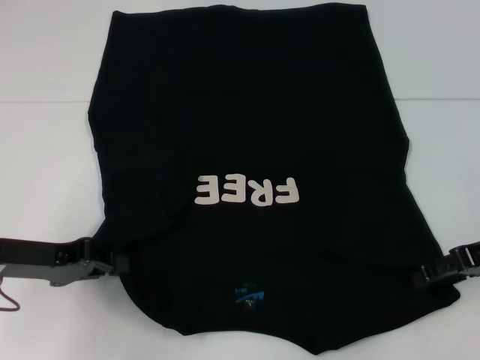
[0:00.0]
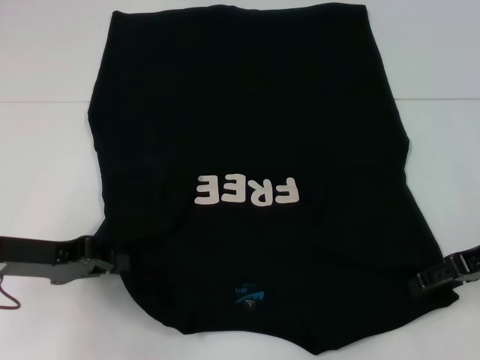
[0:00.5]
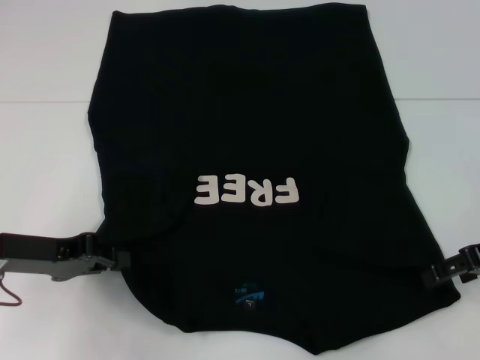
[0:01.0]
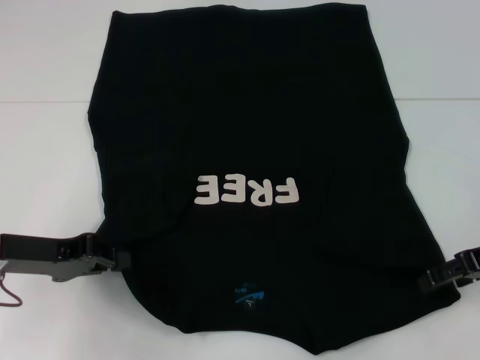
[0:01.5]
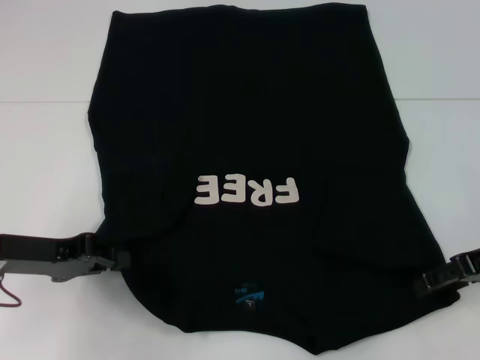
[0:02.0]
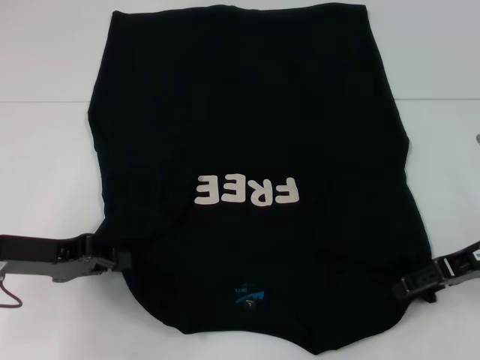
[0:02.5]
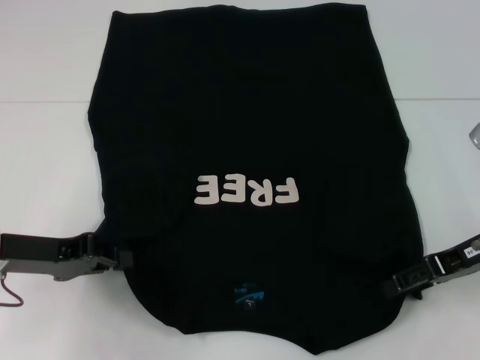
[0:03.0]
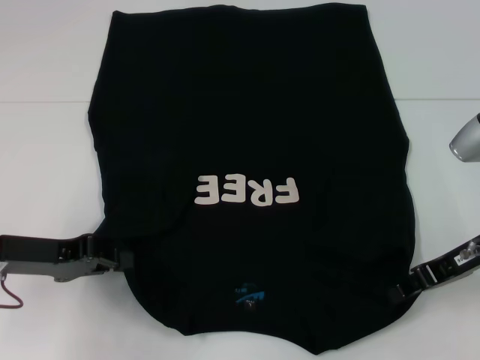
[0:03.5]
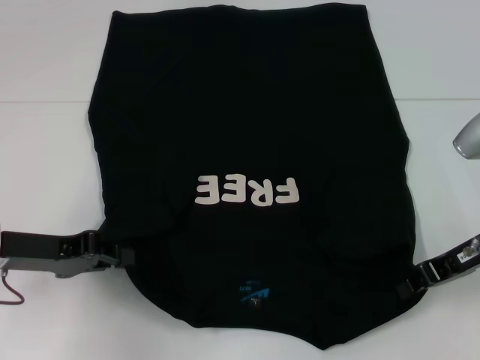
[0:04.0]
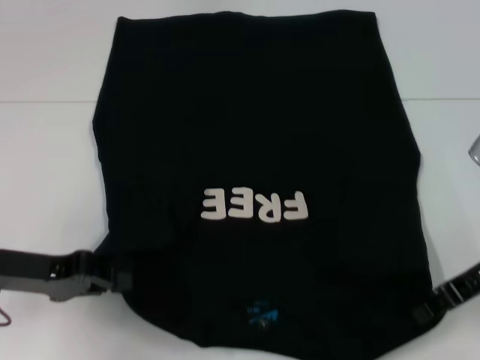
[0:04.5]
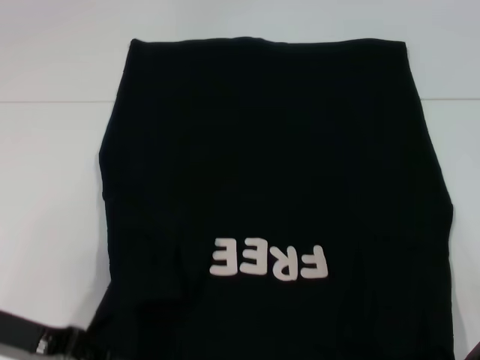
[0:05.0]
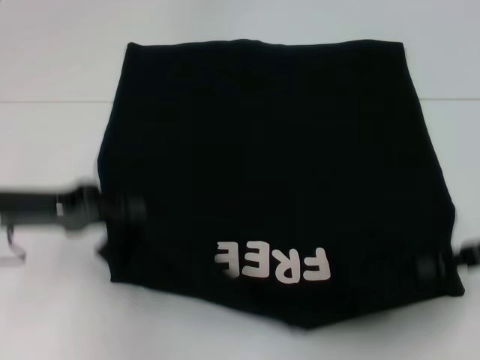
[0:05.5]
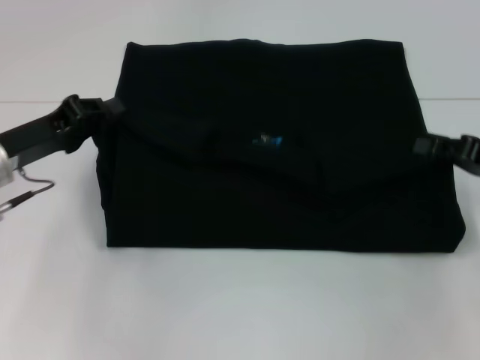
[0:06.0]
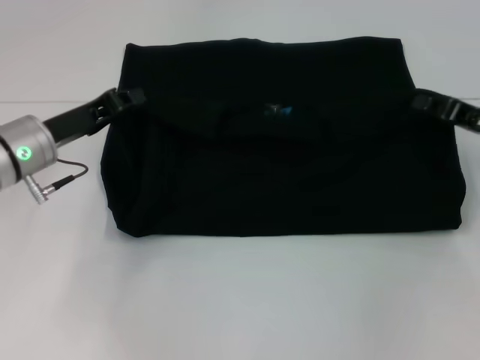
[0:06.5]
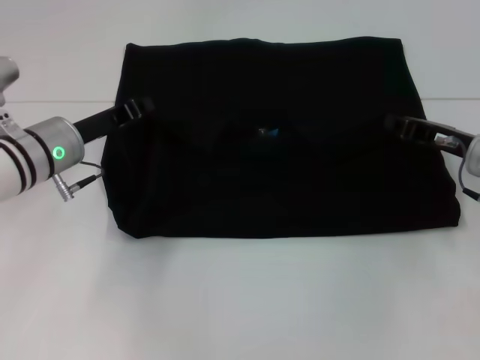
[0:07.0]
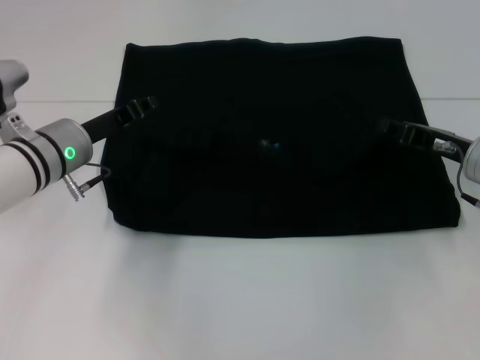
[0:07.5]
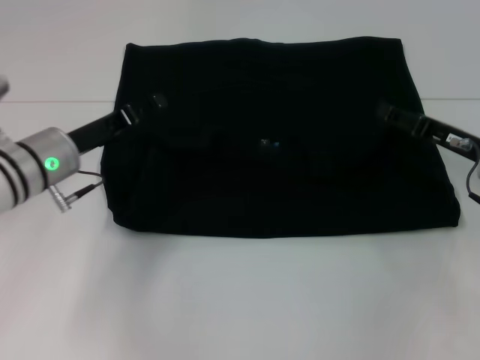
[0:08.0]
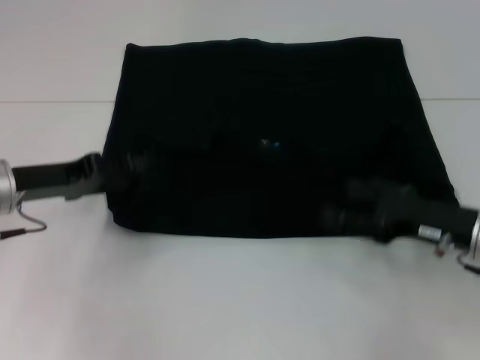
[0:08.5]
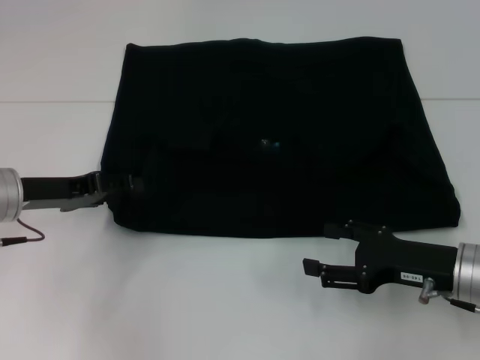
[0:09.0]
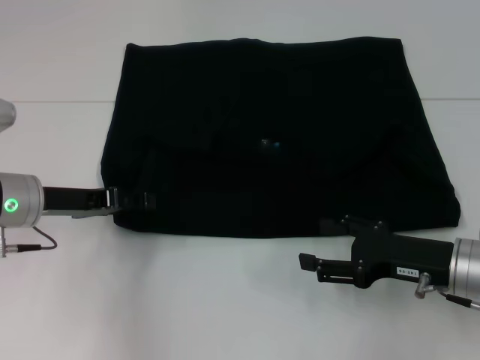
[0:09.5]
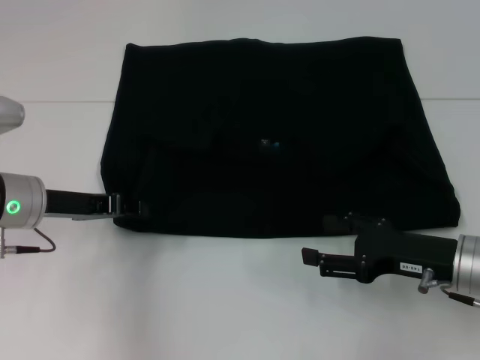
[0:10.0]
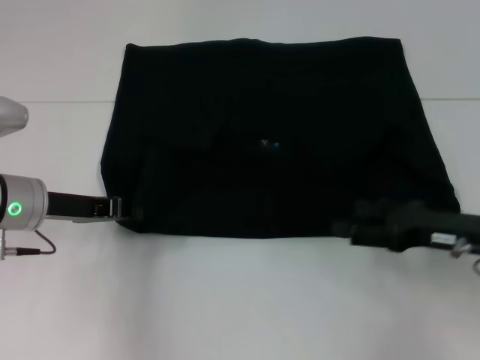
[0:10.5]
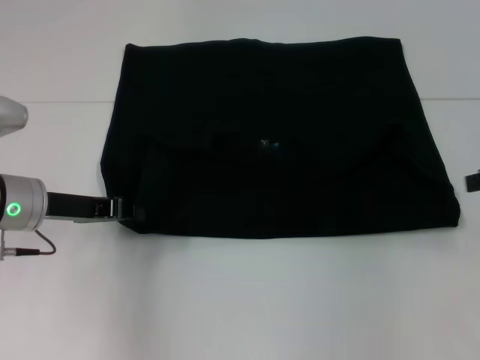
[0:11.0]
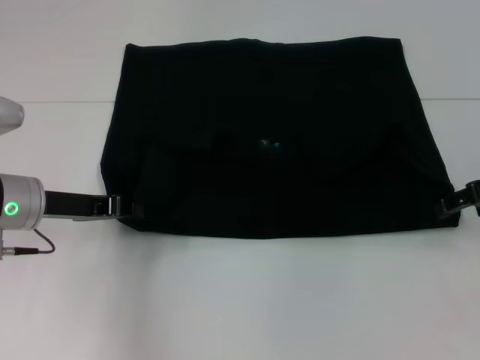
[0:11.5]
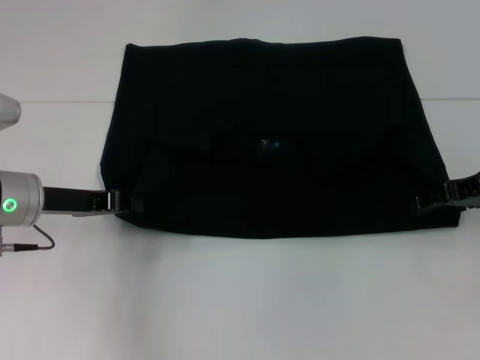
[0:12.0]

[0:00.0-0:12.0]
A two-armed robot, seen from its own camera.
Step, 0.0 to 4.0 s: Grab the bottom right corner with your right hand.
Step, 4.5 to 8.0 s: Fold the clothes with your left hand.
Step, 4.5 to 8.0 s: Fold the clothes with your right hand.
0.0 to 2.0 s: Both grippers stay put.
2.0 to 4.0 s: The right gripper closes its fingers.
4.0 to 6.0 s: The right gripper shifts approximately 5 cm to the right; the left gripper moves some 5 cm.
6.0 to 8.0 s: The left gripper travels to the right by roughly 5 cm, and opens; the right gripper shifts by about 5 cm, and opens up.
8.0 to 10.0 s: The right gripper is displaced backward by some 10 cm.
10.0 to 12.0 s: The right gripper travels forward, upward and to the right by approximately 15 cm. Meanwhile the left gripper closes its fingers.

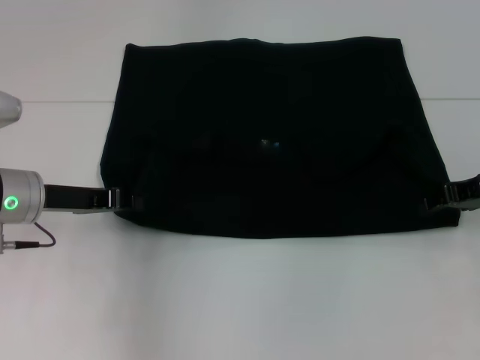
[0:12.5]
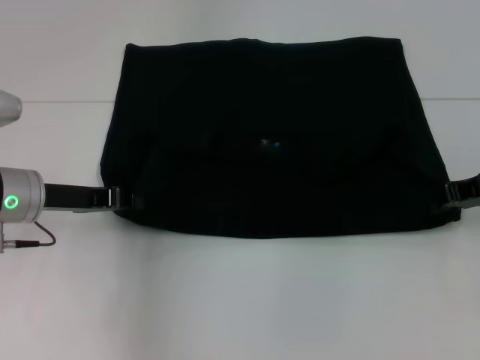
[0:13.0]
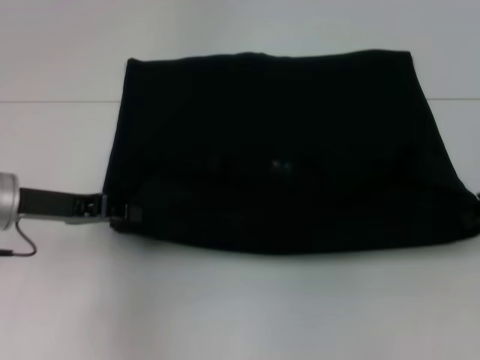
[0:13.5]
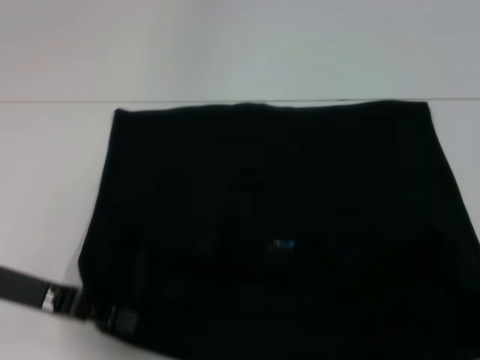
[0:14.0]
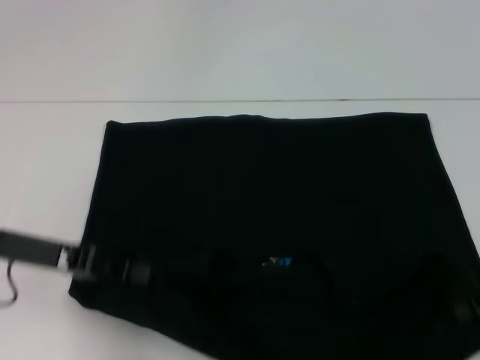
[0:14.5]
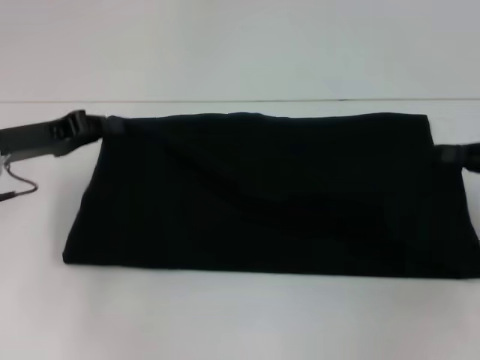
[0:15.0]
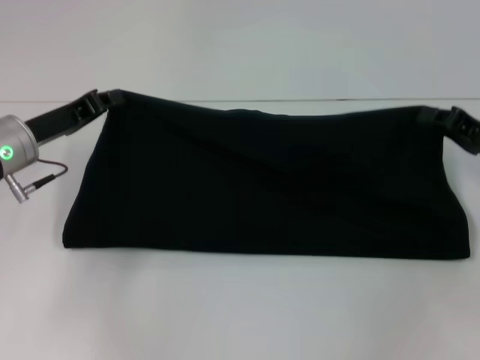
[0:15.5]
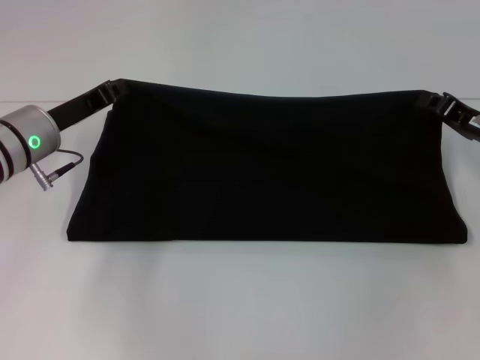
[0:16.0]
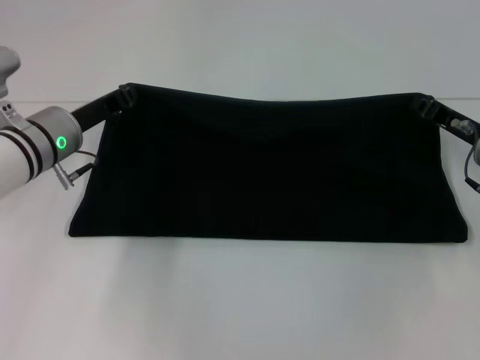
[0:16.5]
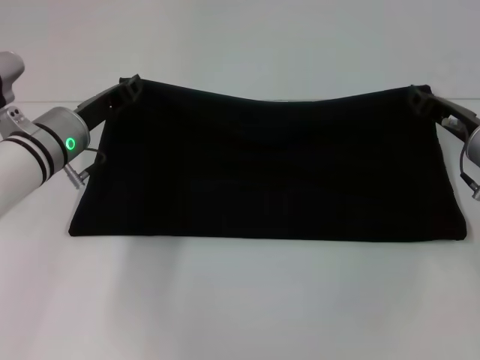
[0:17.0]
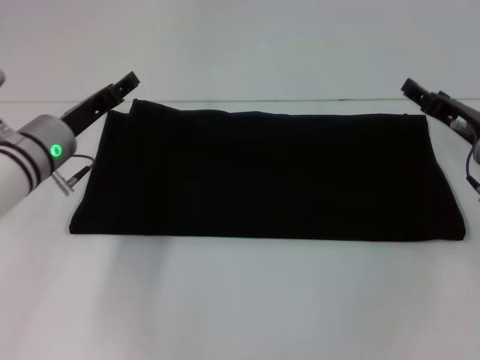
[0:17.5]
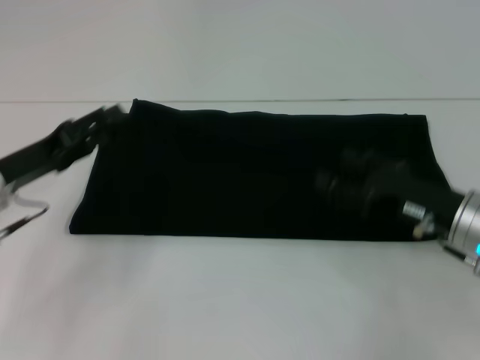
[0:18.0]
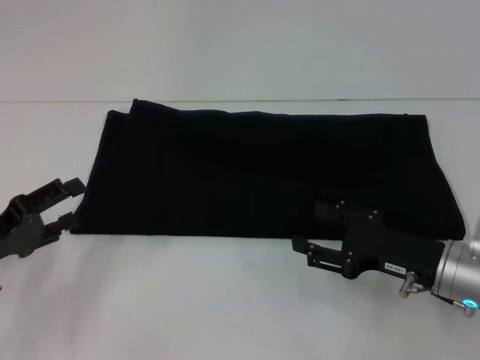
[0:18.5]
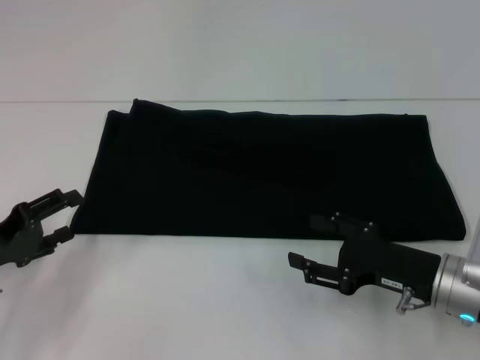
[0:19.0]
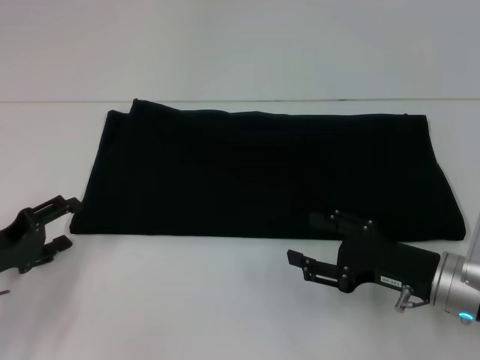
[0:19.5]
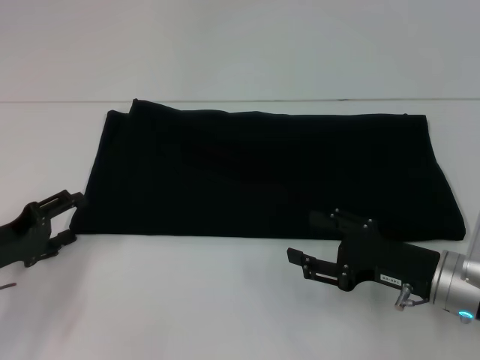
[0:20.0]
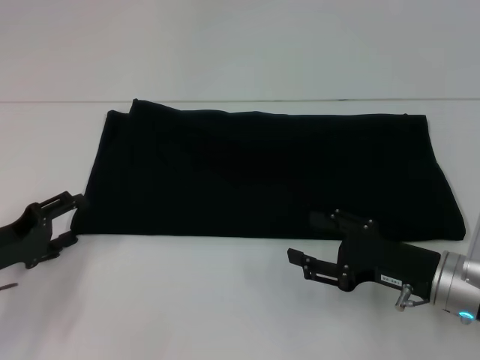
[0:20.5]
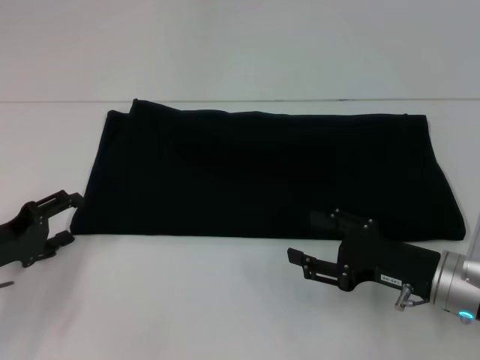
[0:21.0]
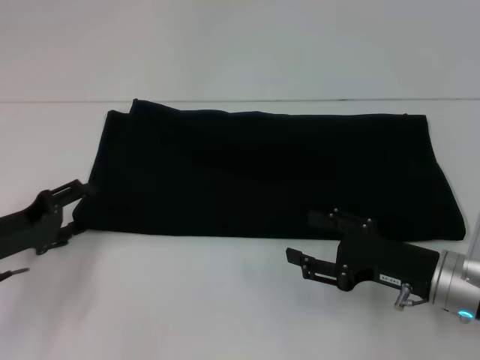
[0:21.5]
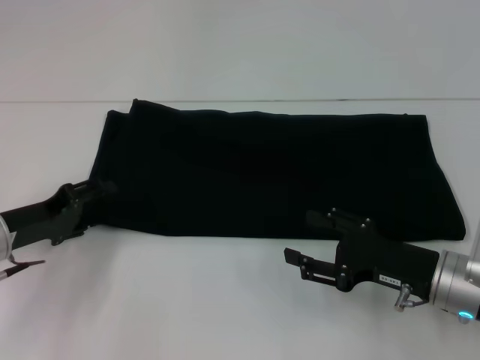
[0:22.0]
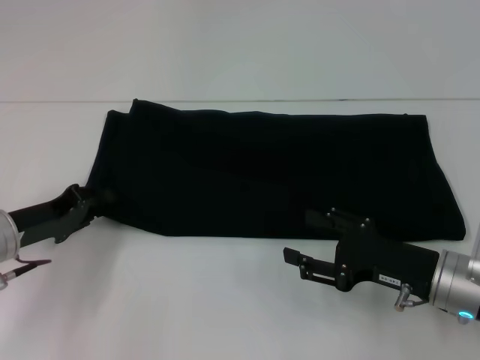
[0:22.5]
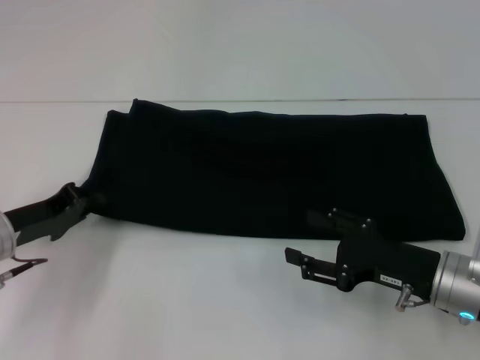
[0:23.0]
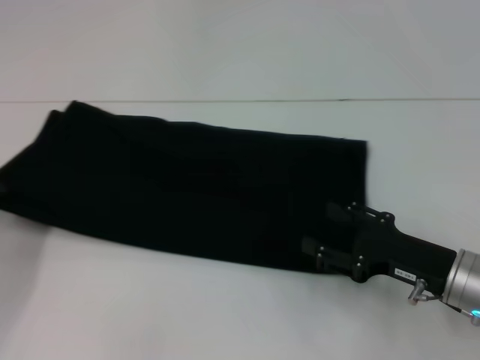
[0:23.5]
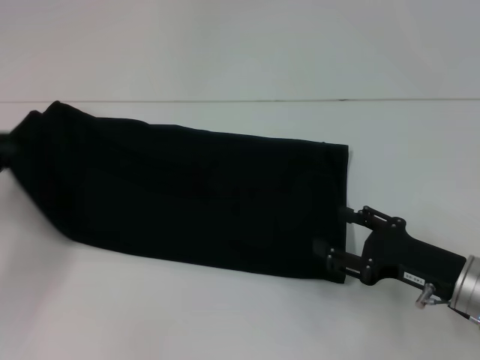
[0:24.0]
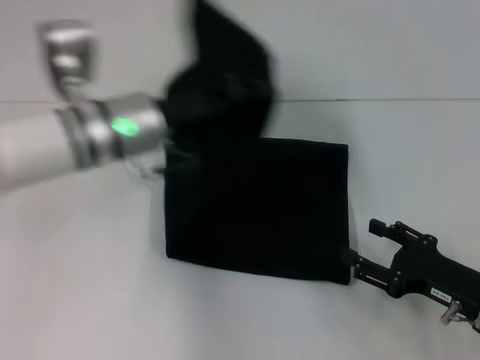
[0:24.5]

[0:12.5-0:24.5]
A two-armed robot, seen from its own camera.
Step, 14.5 to 17.0 s: Fold the clothes with your right hand.
12.5 to 14.5 s: The right gripper shifts about 10 cm backward, and closes. Meanwhile the left gripper is displaced backward by roughly 5 cm.
14.5 to 16.5 s: The left gripper heads forward and to the right, covering approximately 10 cm. The right gripper moves forward and to the left, about 10 cm.
16.5 to 18.5 s: The right gripper heads backward, covering approximately 10 cm, and opens up. Meanwhile the left gripper goes about 20 cm backward and to the left, and opens.
18.5 to 20.5 s: The grippers stay close to where they were, moving slightly.
20.5 to 22.5 s: The left gripper closes.
22.5 to 24.5 s: The right gripper changes place by roughly 5 cm; the left gripper is displaced to the right, upward and forward by about 20 cm, and closes its fingers.

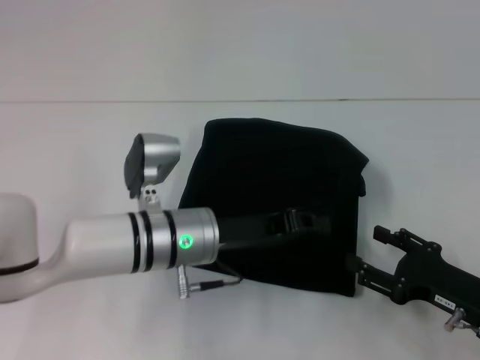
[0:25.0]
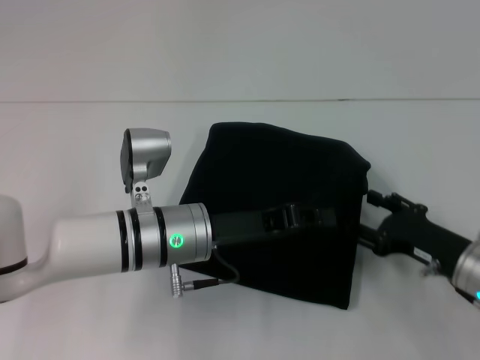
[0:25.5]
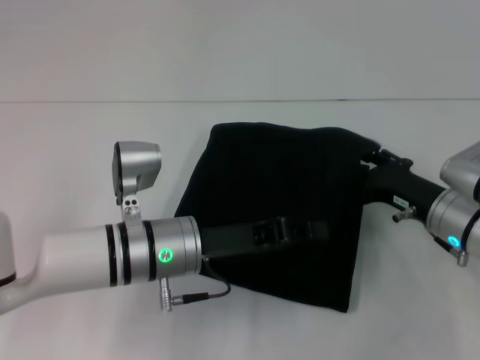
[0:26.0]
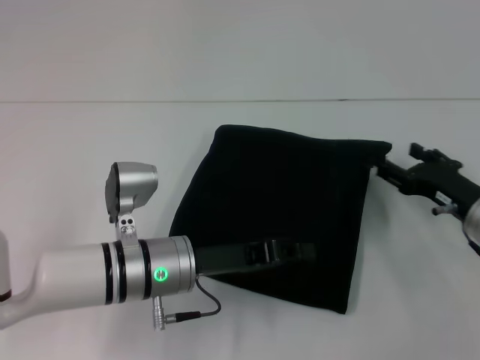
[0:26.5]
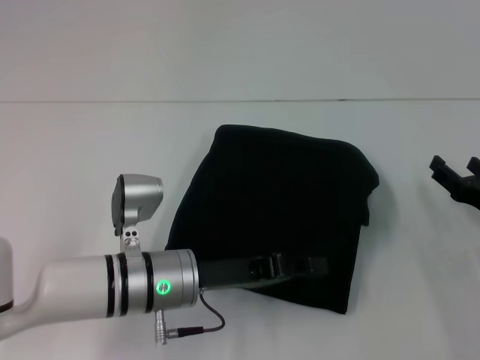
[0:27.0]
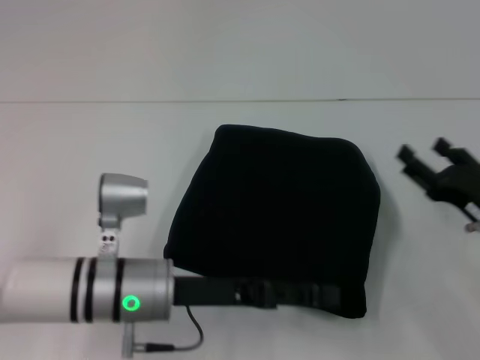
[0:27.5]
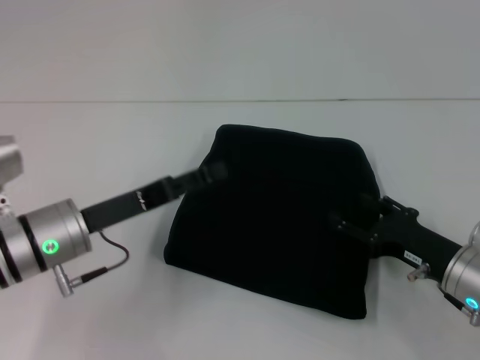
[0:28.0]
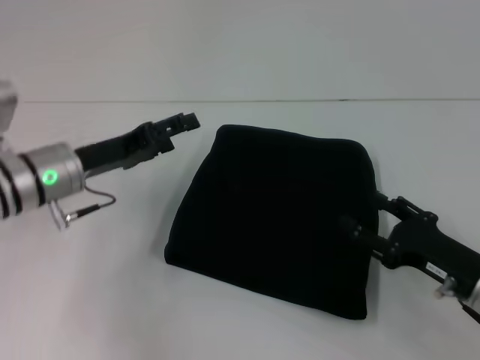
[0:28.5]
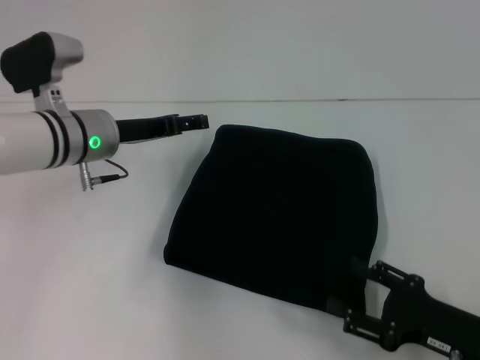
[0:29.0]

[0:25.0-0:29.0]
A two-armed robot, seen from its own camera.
Step, 25.0 to 27.5 s: Fold the clothes with your left hand.
25.0 to 27.0 s: The right gripper moves forward, some 5 cm.
27.0 to 29.0 s: The left gripper travels forward, to the left and upward by some 15 cm, and opens up. Meanwhile the right gripper heads backward, covering roughly 10 cm.
